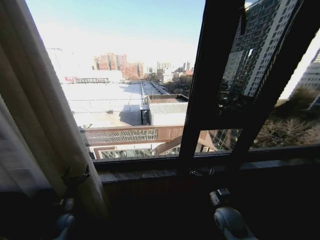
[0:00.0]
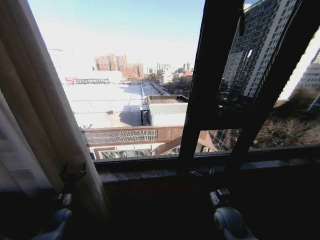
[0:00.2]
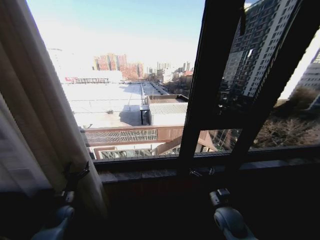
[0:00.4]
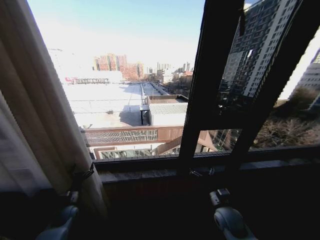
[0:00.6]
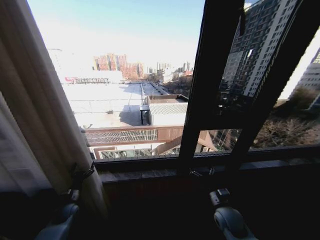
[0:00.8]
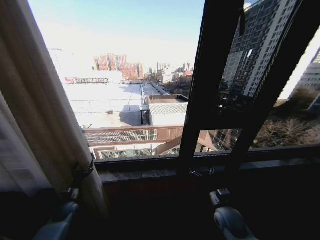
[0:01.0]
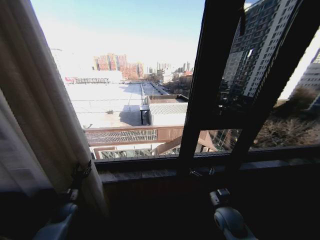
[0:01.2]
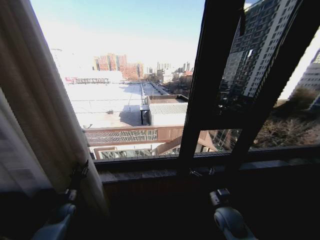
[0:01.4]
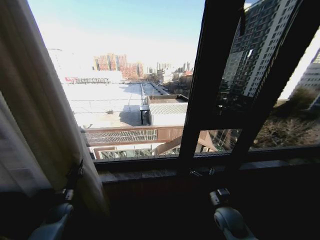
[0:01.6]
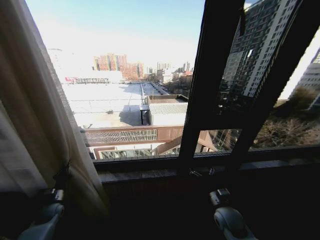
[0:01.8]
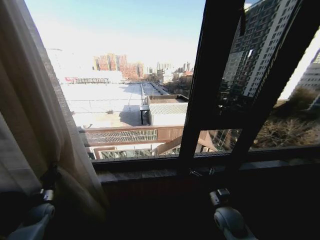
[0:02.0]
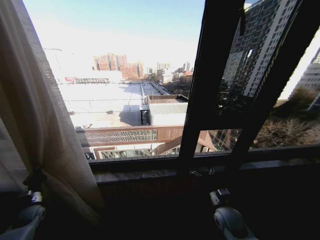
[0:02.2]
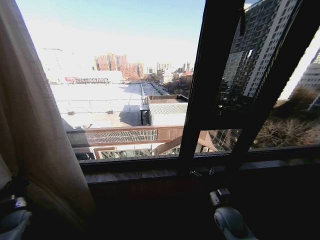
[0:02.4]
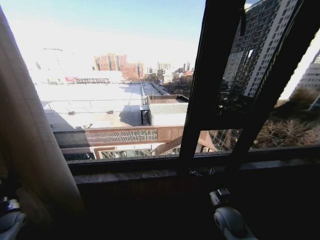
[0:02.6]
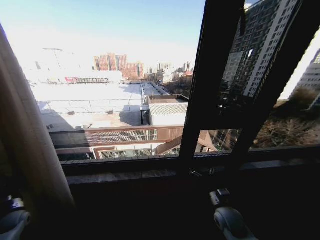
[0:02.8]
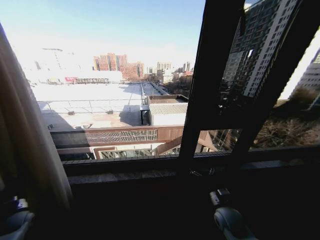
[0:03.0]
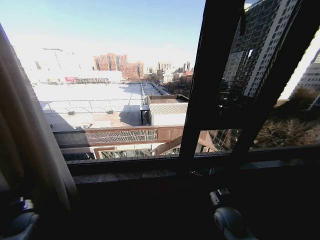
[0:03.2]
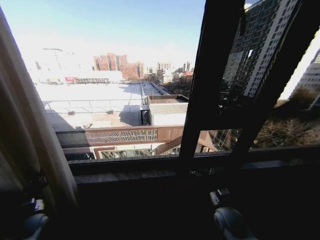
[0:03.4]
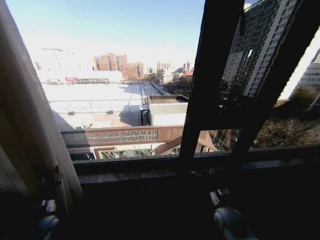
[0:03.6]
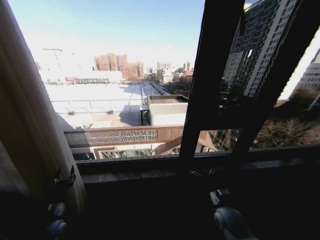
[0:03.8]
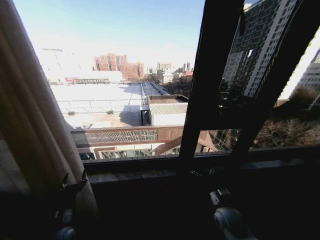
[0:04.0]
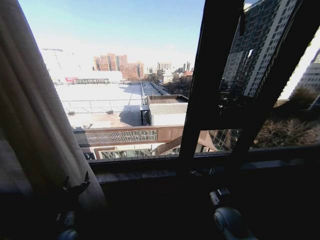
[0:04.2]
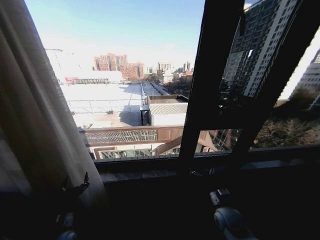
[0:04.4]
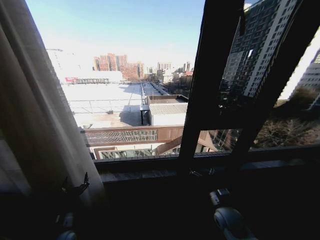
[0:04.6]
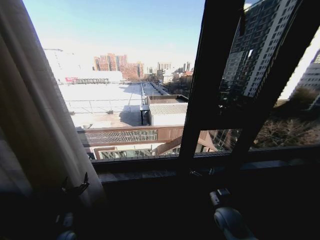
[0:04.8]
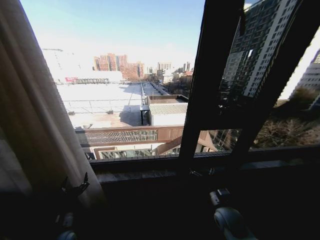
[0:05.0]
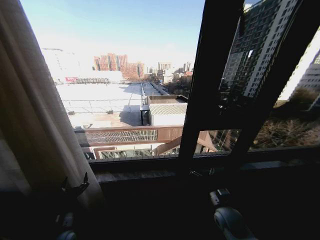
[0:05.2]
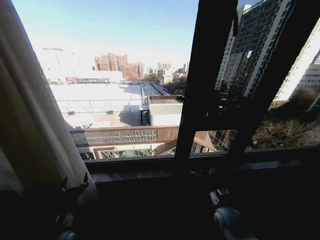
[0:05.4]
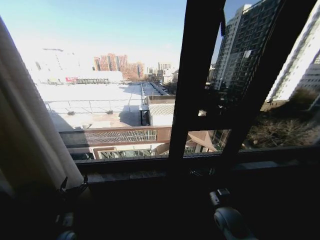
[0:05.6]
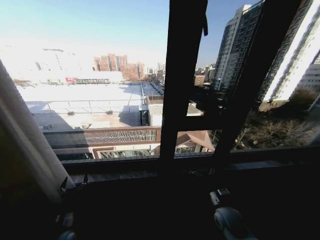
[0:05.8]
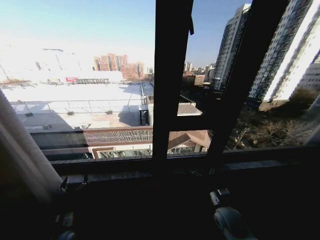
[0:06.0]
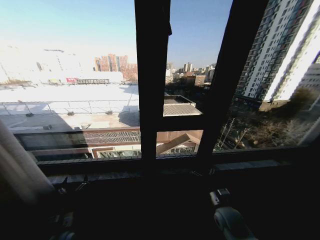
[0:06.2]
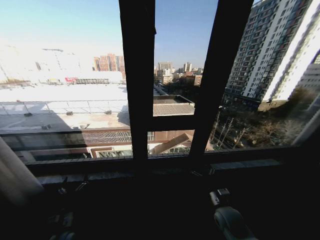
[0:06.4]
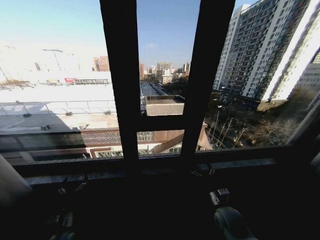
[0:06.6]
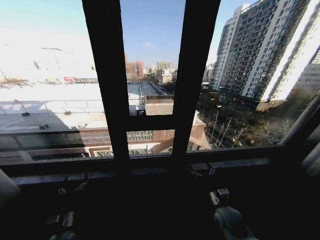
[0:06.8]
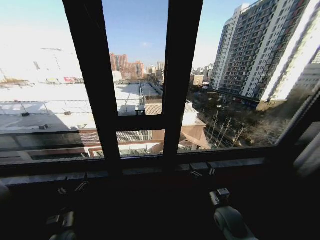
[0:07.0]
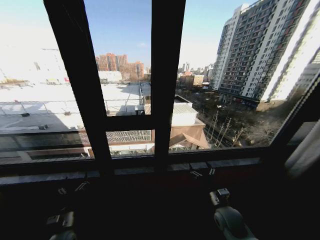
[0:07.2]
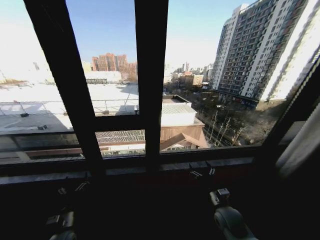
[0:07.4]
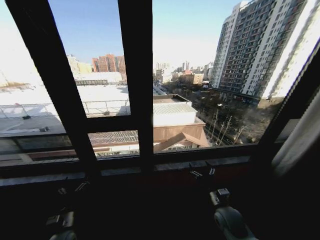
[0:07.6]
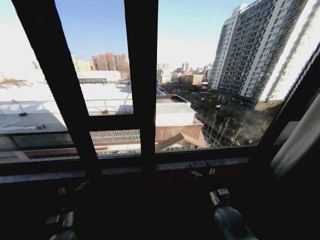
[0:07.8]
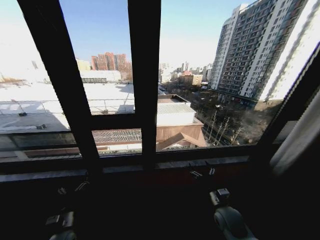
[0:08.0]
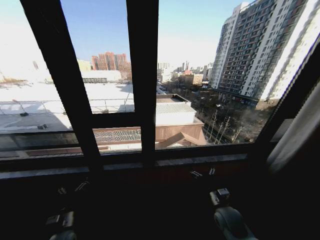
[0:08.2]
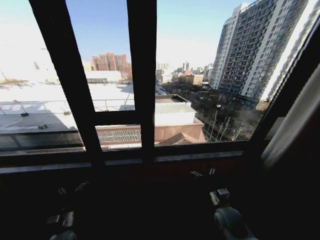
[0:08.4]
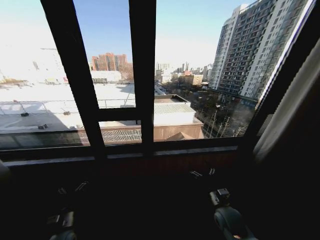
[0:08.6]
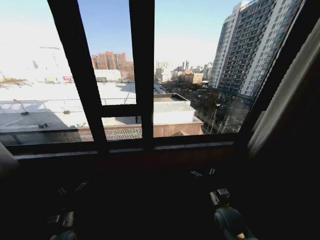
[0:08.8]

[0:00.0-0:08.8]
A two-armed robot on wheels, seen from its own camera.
Task of the whole recording: Open the curtains by pulling them apart, changing their state from closed to fully open.
0:00.0 to 0:01.4: The left gripper moves forward, some 5 cm, and closes its fingers.
0:01.4 to 0:03.0: The left gripper shifts about 15 cm to the left, and closes up.
0:03.0 to 0:04.4: The left gripper goes approximately 25 cm to the right, and opens up.
